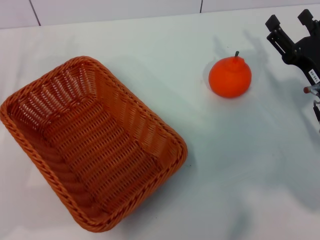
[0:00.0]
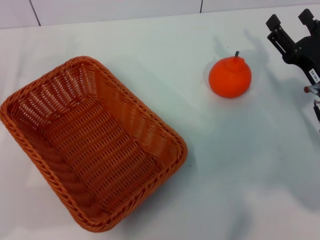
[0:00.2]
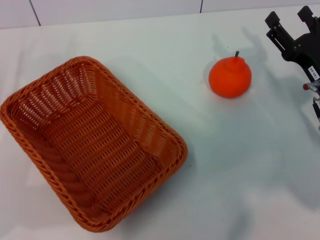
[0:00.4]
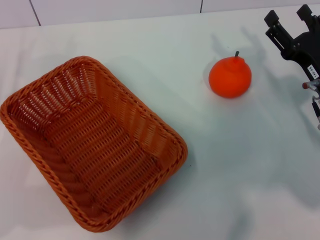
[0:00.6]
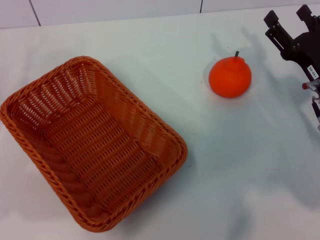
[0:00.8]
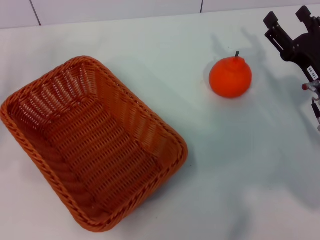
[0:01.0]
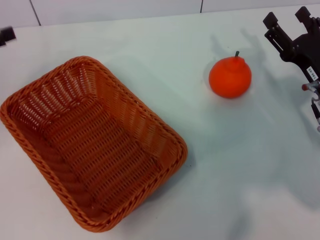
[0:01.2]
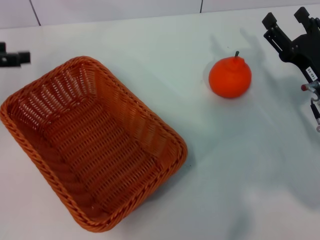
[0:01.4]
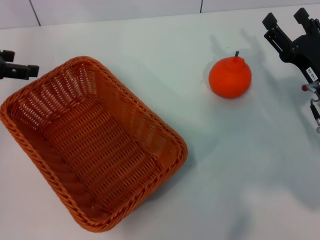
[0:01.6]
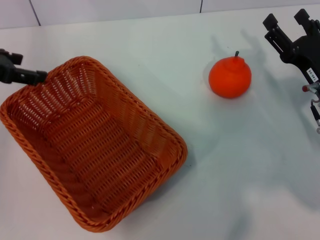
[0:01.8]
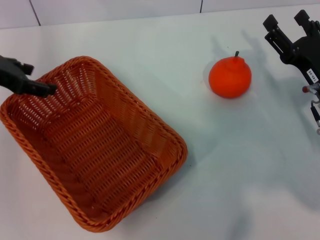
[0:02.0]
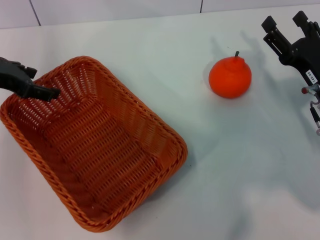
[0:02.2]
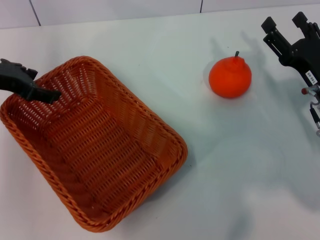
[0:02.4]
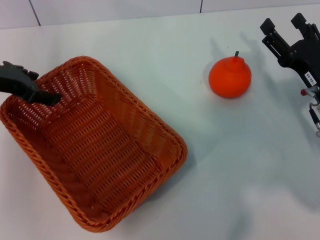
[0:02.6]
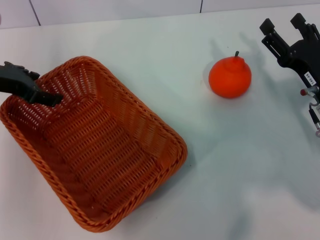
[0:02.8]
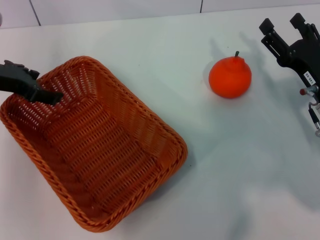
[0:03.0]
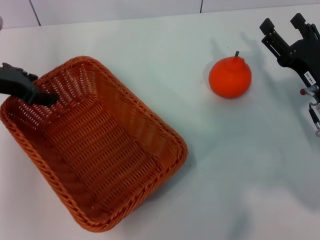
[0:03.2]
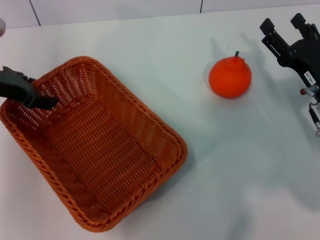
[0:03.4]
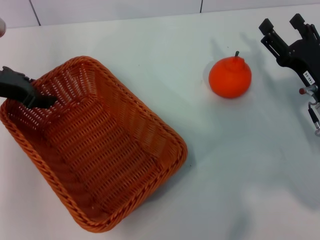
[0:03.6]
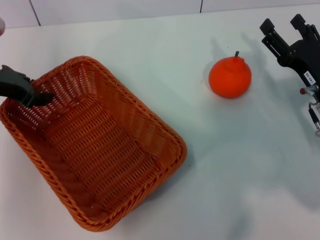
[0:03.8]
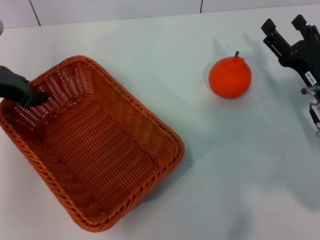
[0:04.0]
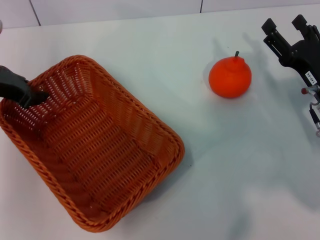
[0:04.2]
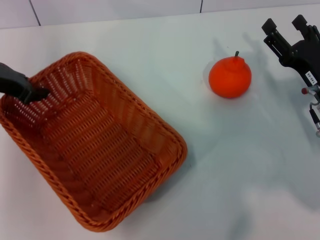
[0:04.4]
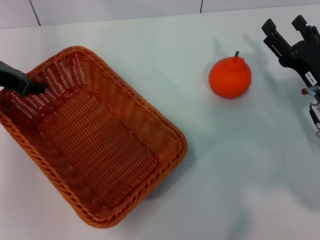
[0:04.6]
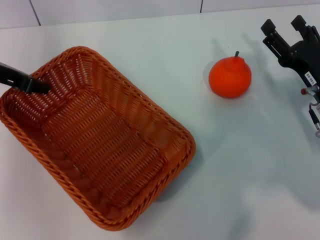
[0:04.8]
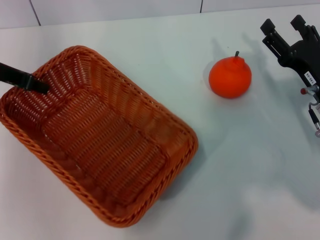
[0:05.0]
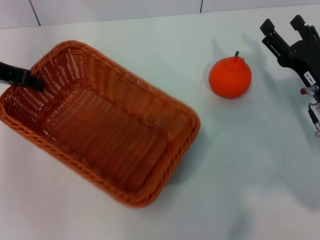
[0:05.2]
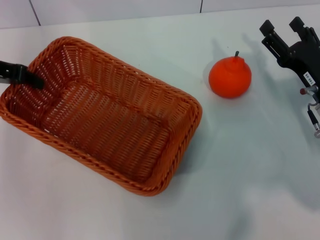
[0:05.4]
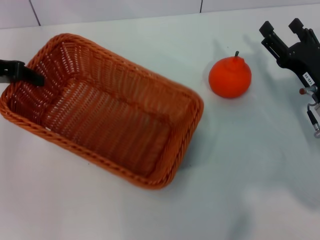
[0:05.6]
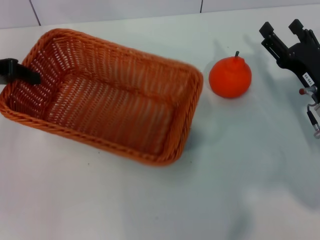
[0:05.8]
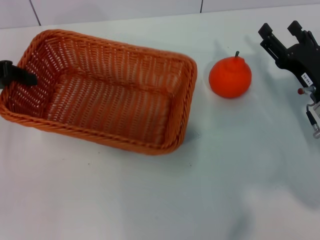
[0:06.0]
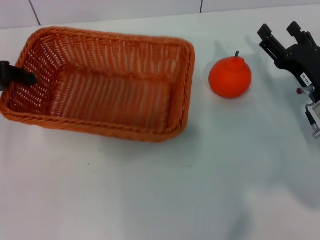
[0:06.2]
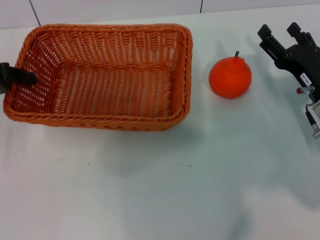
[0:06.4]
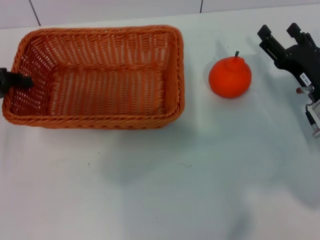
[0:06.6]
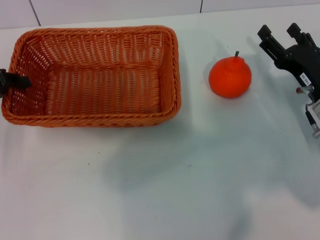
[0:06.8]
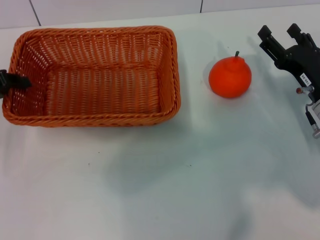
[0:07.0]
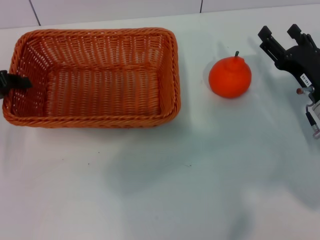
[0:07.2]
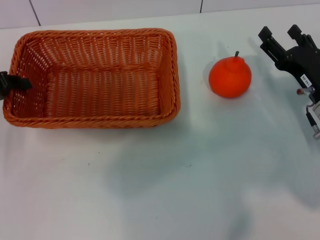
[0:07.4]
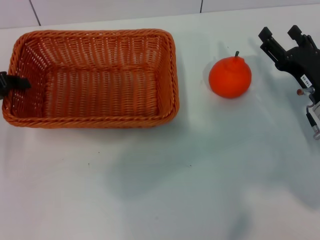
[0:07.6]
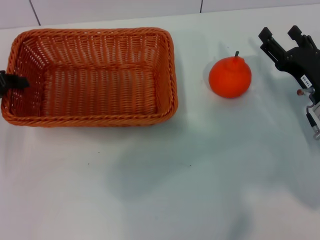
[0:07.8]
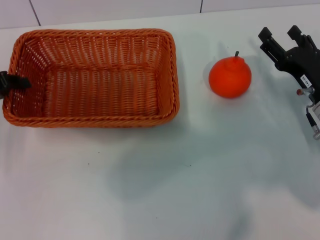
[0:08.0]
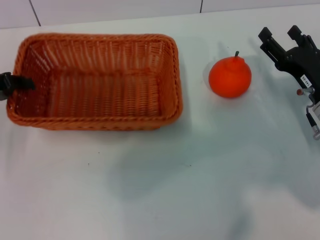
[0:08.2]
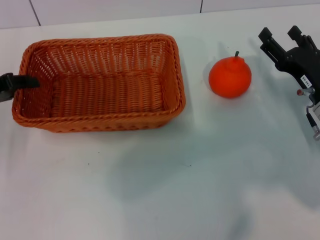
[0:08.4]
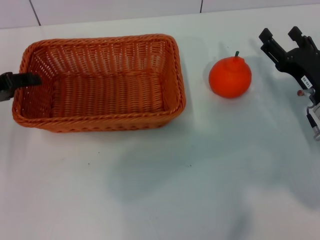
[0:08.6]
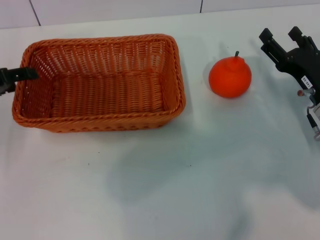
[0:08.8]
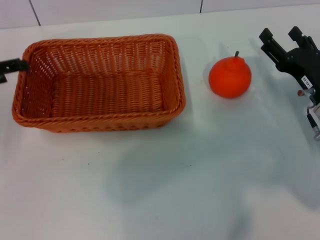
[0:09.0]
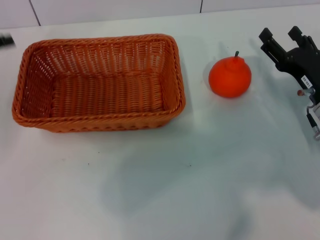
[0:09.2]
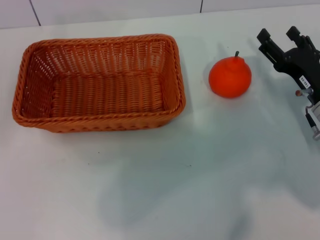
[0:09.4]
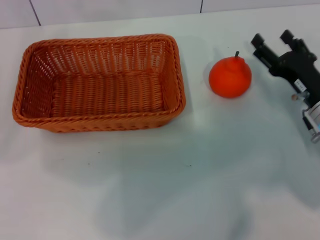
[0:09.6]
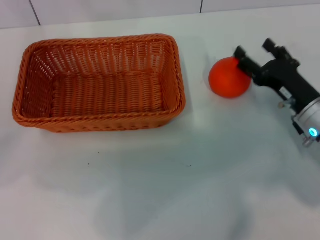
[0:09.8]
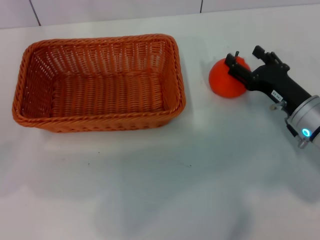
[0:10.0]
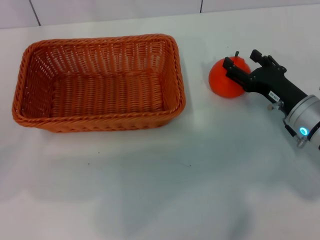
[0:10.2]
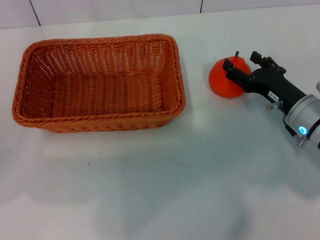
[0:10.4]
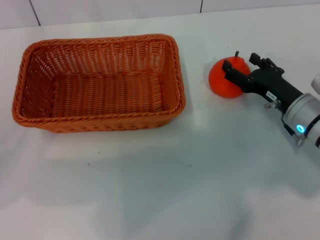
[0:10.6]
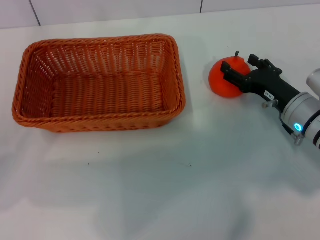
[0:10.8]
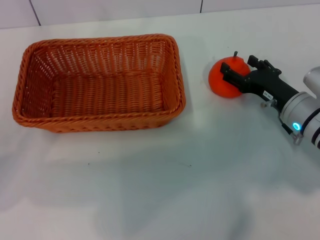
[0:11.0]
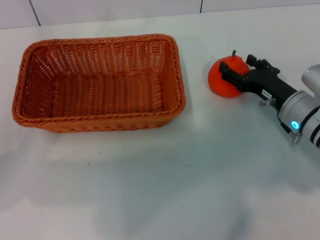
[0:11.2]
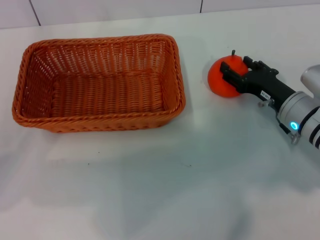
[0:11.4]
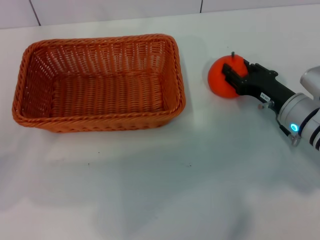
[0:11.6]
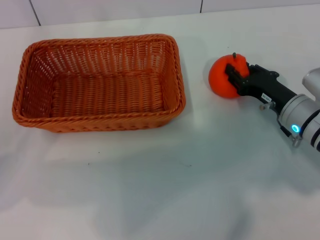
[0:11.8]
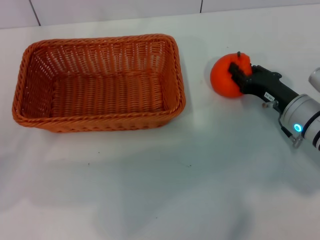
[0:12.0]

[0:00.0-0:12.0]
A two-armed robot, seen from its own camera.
Task of the whole recording: the left gripper pick up the yellow basket and place it horizontally in the middle of the table, the right gripper pick up the orange and place it into the yellow basket.
Step, 0:00.0 to 0:05.4: Pick up the light basket with the left gripper.
Step, 0:05.6 to 0:08.8: Place the light basket in the center of view with the left gripper.
0:00.0 to 0:01.6: The left gripper heads upward and forward, covering some 15 cm.
0:01.6 to 0:03.0: The left gripper heads to the right, covering roughly 5 cm.
0:03.0 to 0:04.4: The left gripper closes.
0:04.4 to 0:06.0: The left gripper shifts about 5 cm to the left.
0:06.0 to 0:07.6: The left gripper shifts by approximately 5 cm.
0:07.6 to 0:09.0: The left gripper opens up.
0:10.4 to 0:12.0: The right gripper closes its fingers.

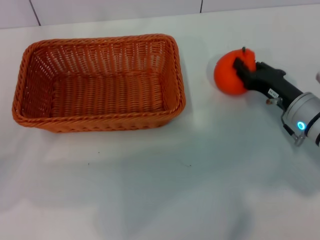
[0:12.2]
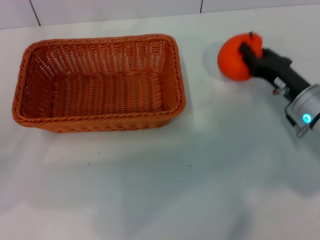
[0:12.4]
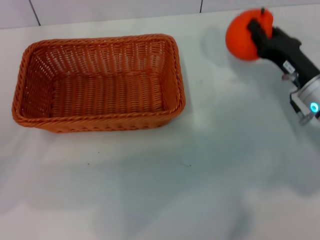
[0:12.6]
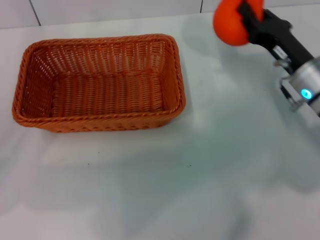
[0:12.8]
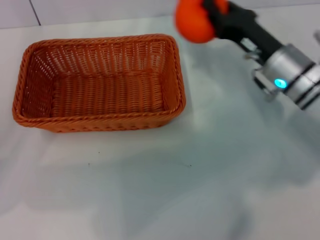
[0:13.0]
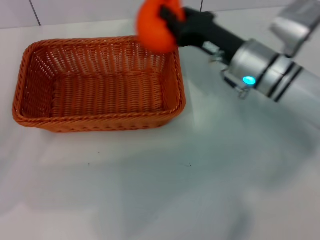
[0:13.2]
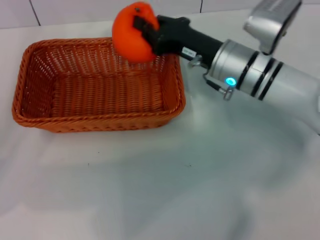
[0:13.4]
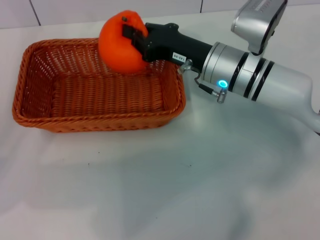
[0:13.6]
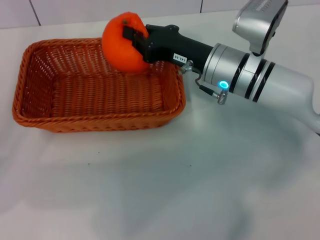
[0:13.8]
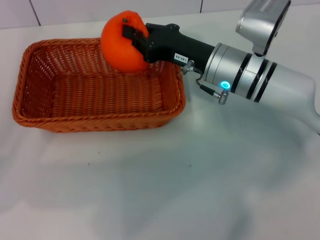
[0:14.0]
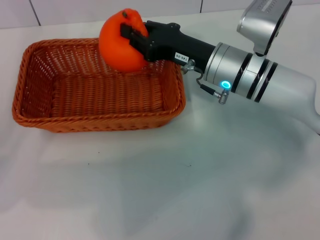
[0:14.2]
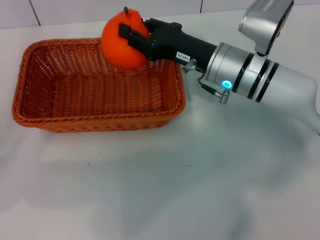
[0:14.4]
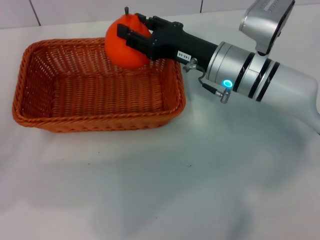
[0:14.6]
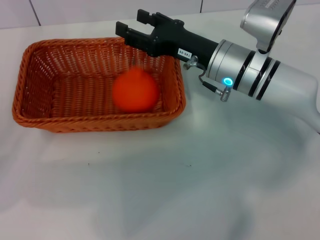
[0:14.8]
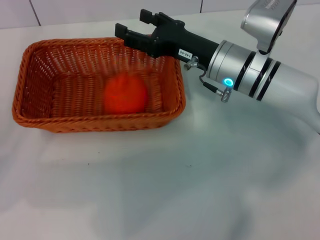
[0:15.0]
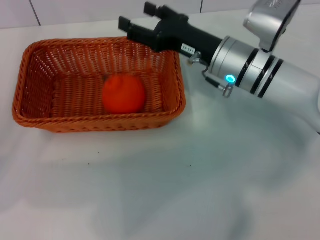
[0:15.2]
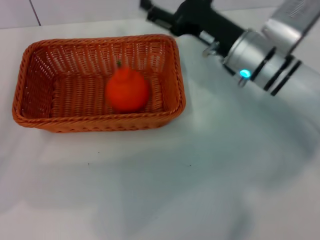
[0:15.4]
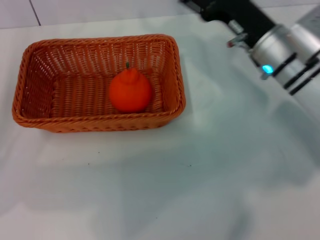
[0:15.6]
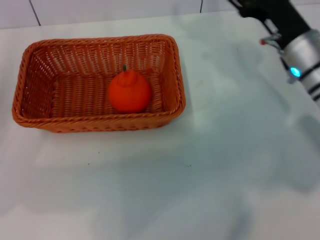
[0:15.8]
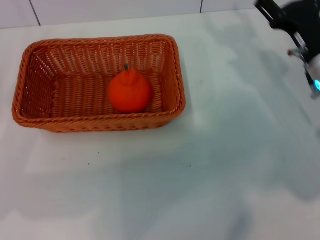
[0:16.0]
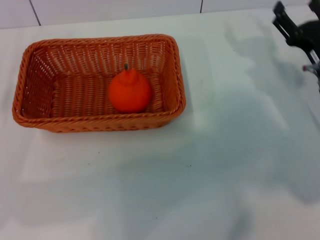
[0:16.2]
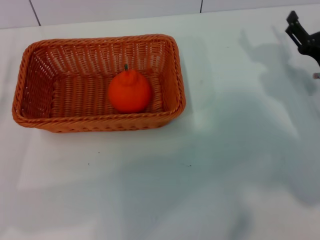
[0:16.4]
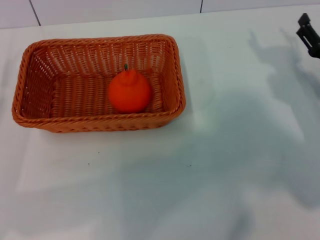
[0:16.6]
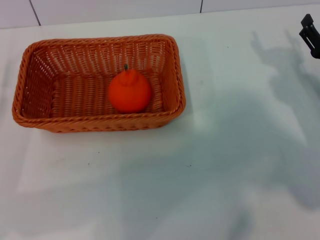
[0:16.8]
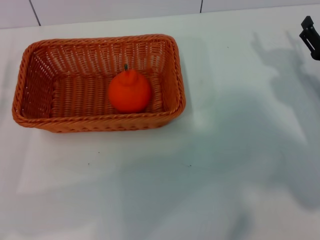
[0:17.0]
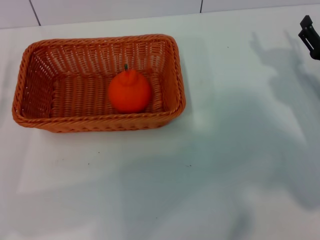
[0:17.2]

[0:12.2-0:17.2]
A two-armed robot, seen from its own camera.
Task of the whole recording: the left gripper pick up the yellow basket and place it horizontally in the middle of the table, the right gripper pick up the orange and place it into the yellow basket.
Step, 0:12.6 to 0:14.6: Place the orange into the light basket with the right gripper.
0:12.2 to 0:13.8: The right gripper shifts roughly 15 cm to the left, upward and forward.
0:13.8 to 0:15.6: The right gripper goes roughly 5 cm to the right, and opens.
0:15.6 to 0:17.2: The right gripper goes approximately 15 cm to the right, backward and downward; the left gripper changes place by approximately 5 cm.
